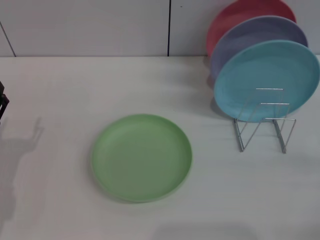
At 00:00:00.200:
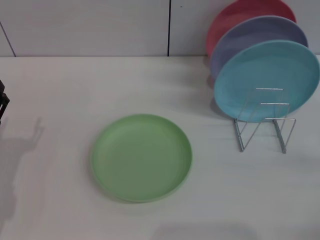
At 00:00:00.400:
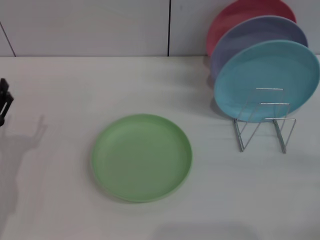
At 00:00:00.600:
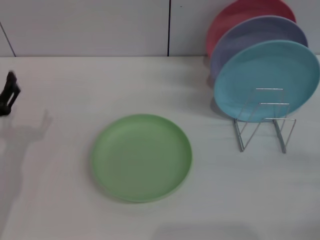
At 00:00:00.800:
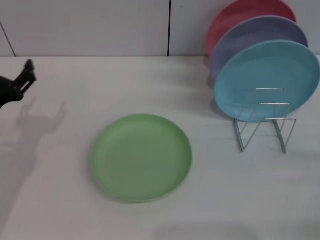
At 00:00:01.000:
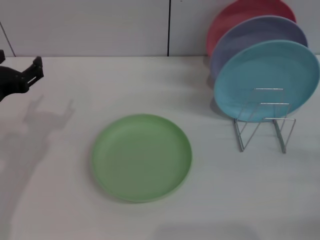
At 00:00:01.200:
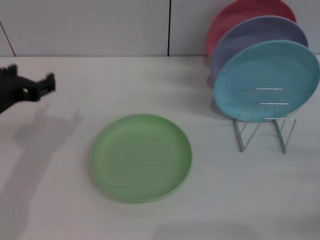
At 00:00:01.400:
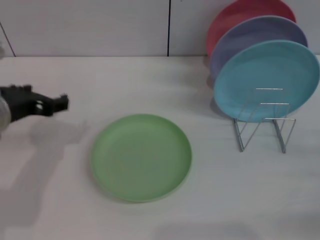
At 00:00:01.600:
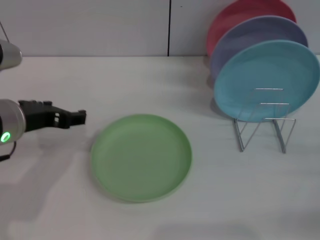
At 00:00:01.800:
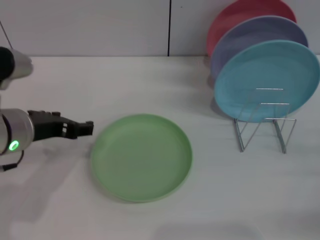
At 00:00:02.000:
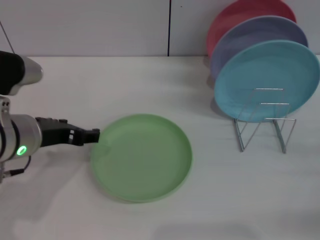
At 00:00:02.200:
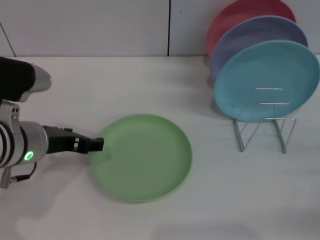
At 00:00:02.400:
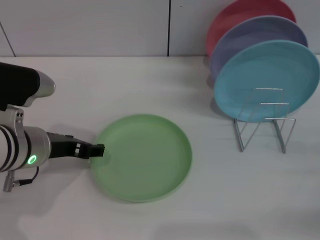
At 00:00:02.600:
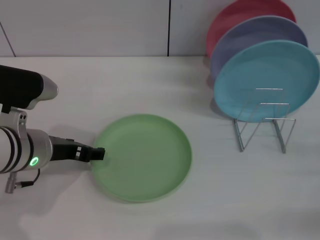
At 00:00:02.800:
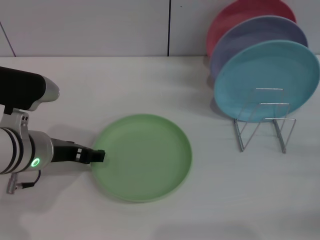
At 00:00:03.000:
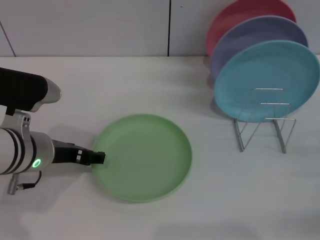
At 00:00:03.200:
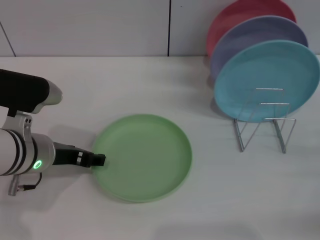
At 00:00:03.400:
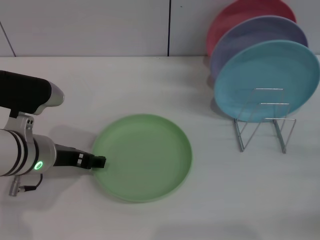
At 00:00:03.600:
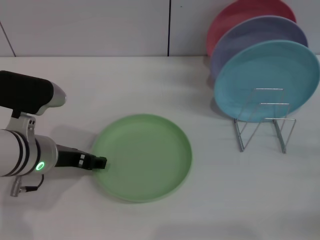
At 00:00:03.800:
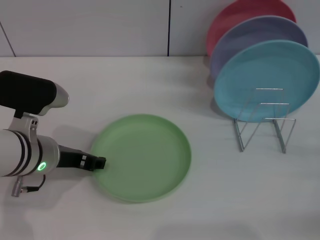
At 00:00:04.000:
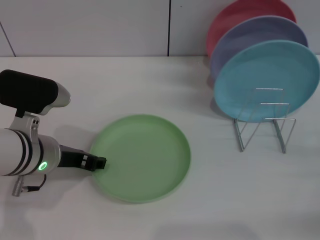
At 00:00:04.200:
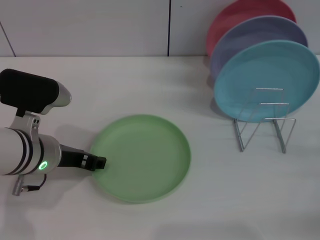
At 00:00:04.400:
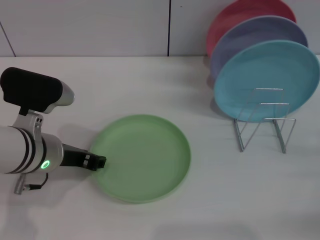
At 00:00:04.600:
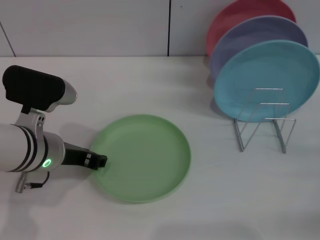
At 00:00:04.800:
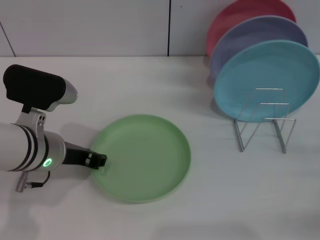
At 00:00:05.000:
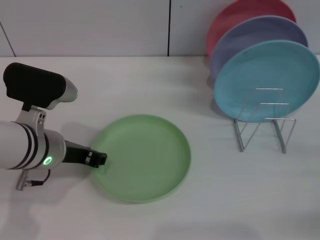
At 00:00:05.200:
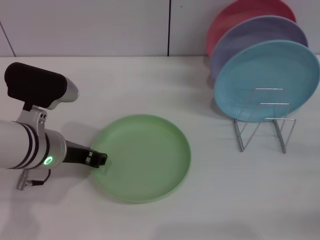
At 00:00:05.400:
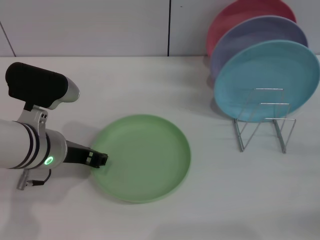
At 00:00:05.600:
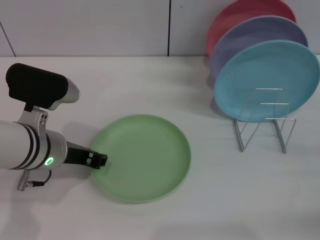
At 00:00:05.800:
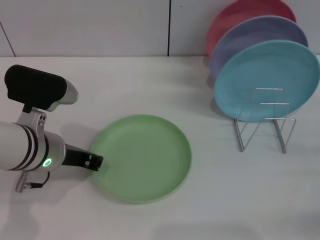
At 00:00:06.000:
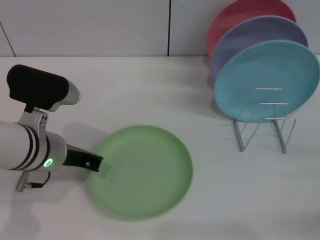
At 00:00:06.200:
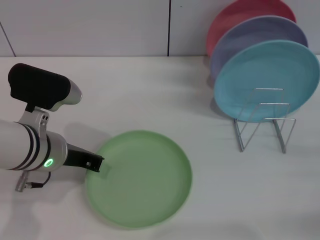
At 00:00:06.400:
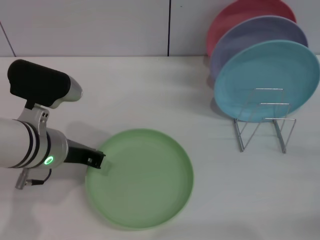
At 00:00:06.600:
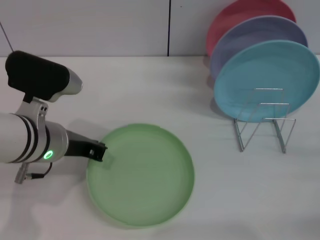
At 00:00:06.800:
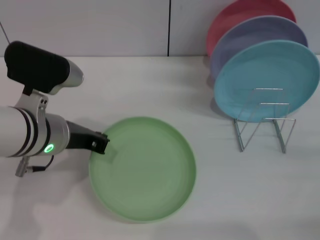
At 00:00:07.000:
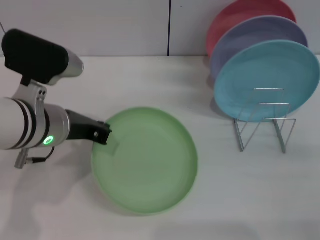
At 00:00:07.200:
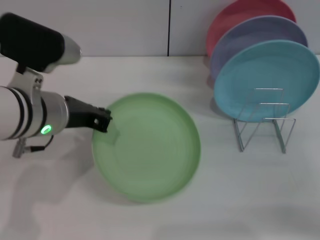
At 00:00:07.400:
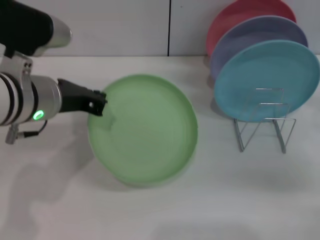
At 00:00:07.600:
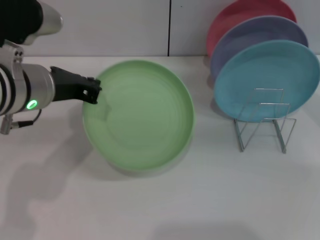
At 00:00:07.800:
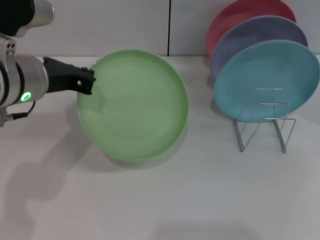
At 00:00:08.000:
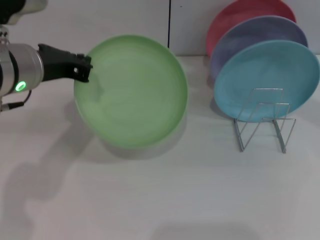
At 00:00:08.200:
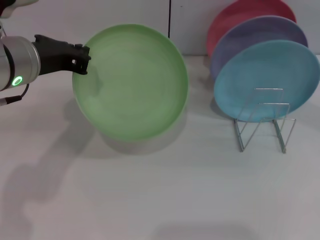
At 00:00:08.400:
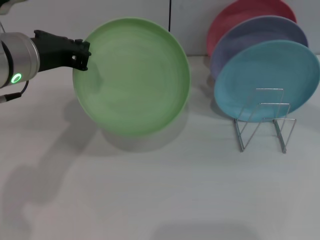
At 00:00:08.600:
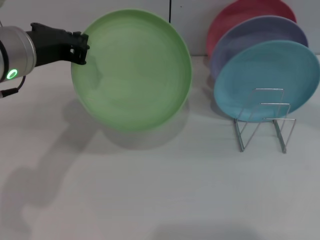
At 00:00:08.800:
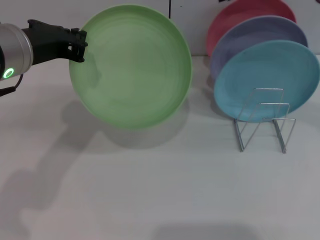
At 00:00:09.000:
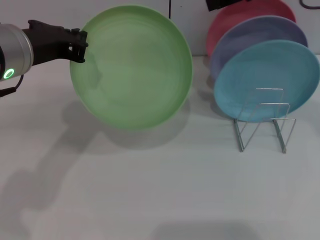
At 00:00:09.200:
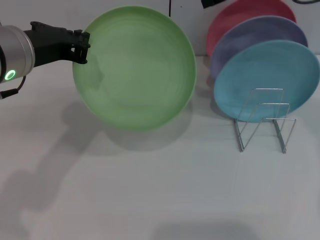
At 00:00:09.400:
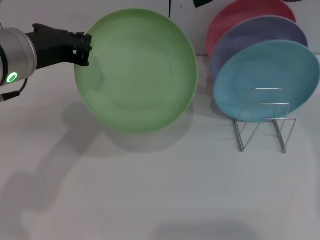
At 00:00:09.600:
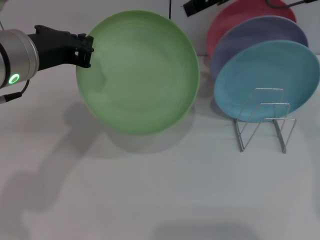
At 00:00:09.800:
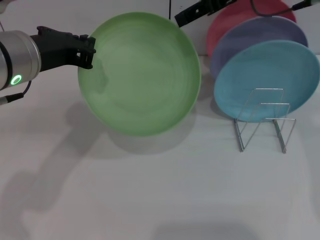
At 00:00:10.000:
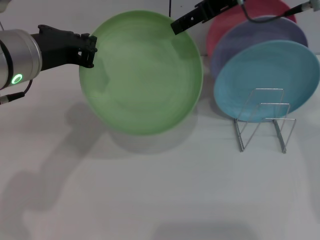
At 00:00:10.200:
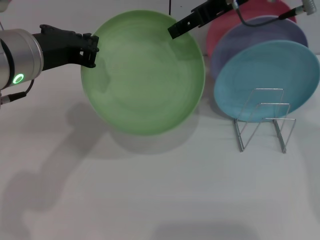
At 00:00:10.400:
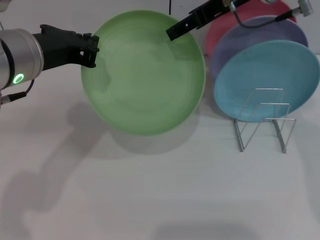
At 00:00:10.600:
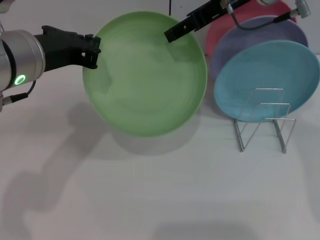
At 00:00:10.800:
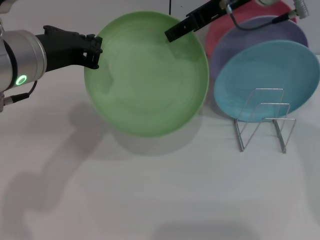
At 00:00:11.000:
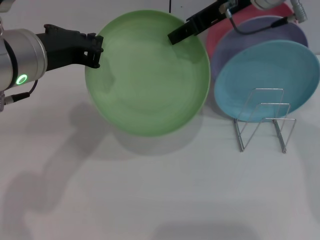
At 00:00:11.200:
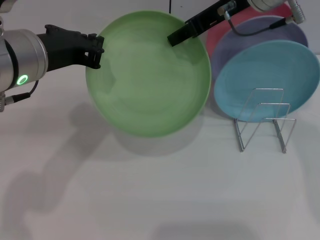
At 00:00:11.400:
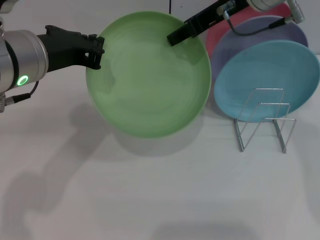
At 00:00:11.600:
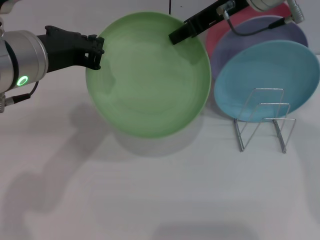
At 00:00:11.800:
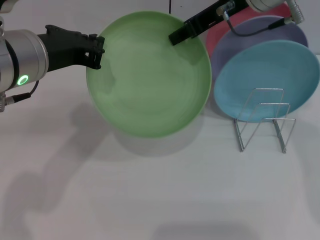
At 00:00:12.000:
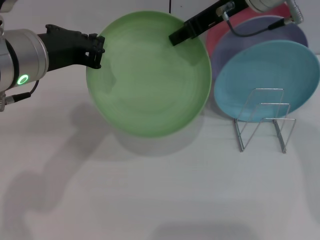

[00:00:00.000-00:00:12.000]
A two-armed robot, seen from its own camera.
Task of the whole recording: Grip the plate with one hand, pass it to the other, then set it on the shelf.
Step, 00:00:00.000 to 00:00:07.400: Pick up the plate with the left gripper.
00:00:00.000 to 00:00:01.600: The left gripper travels upward, to the right and forward by approximately 15 cm.
00:00:01.600 to 00:00:03.000: The left gripper heads downward, covering some 5 cm.
00:00:03.000 to 00:00:04.400: Both grippers stay about where they are.
00:00:04.400 to 00:00:06.000: The left gripper closes.
00:00:06.000 to 00:00:07.600: The right gripper travels forward and upward by about 20 cm; the left gripper moves upward, about 10 cm.
00:00:07.600 to 00:00:09.000: The right gripper is displaced upward and to the left by about 15 cm.
00:00:09.000 to 00:00:10.400: The right gripper travels to the left by about 5 cm.
00:00:10.400 to 00:00:12.000: The right gripper closes its fingers.

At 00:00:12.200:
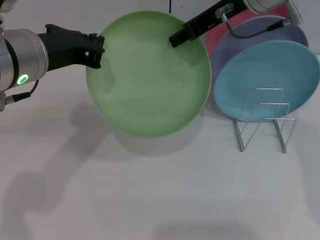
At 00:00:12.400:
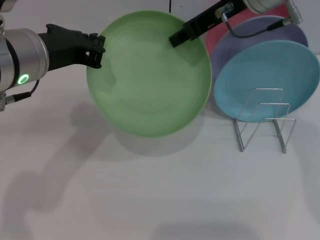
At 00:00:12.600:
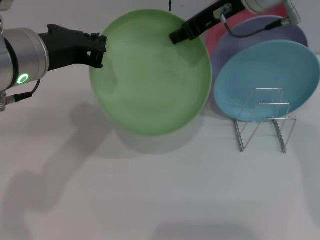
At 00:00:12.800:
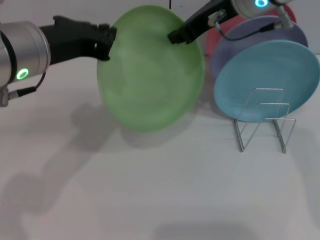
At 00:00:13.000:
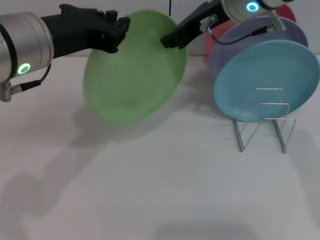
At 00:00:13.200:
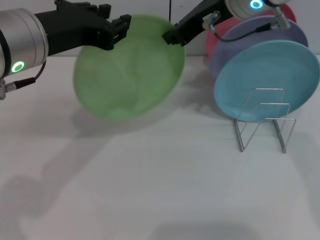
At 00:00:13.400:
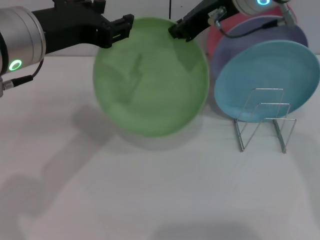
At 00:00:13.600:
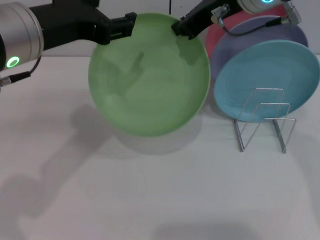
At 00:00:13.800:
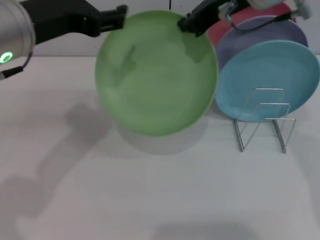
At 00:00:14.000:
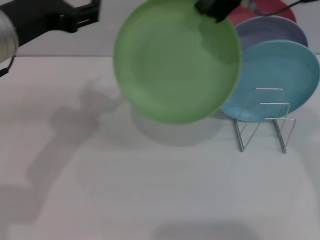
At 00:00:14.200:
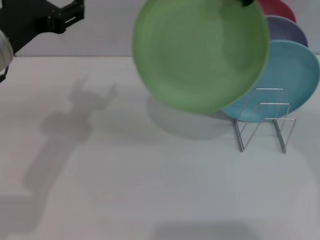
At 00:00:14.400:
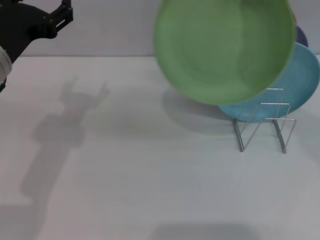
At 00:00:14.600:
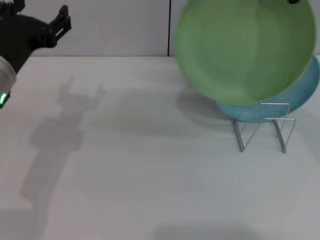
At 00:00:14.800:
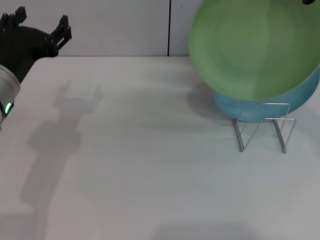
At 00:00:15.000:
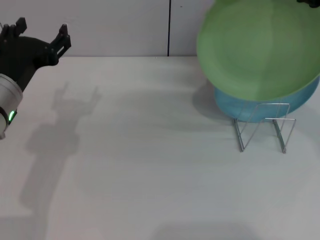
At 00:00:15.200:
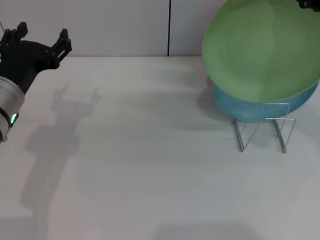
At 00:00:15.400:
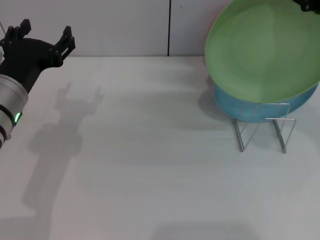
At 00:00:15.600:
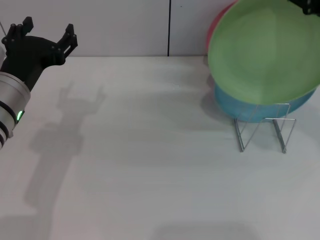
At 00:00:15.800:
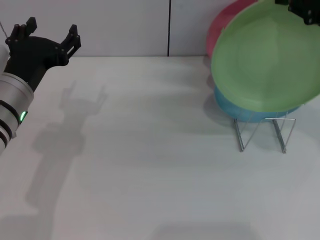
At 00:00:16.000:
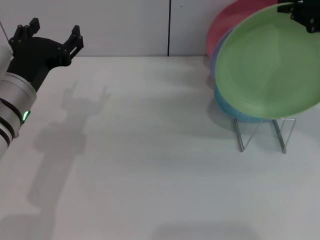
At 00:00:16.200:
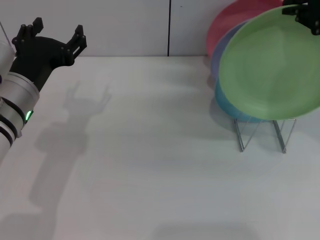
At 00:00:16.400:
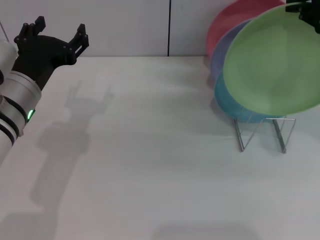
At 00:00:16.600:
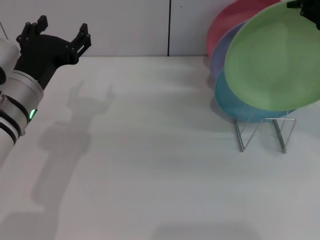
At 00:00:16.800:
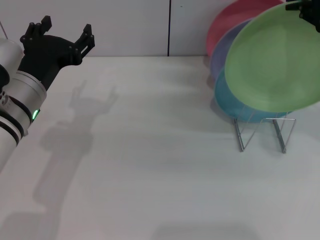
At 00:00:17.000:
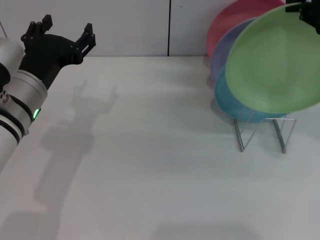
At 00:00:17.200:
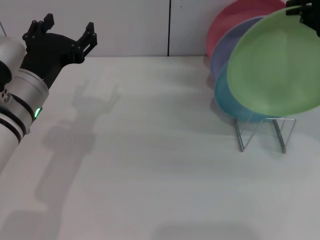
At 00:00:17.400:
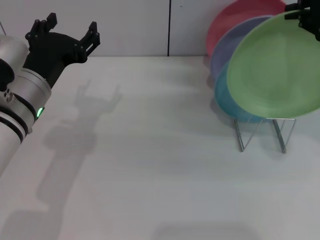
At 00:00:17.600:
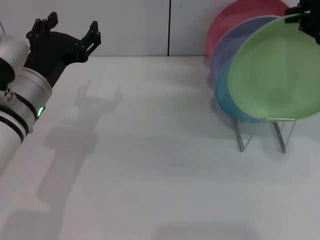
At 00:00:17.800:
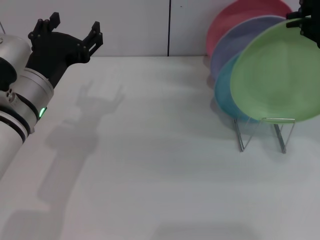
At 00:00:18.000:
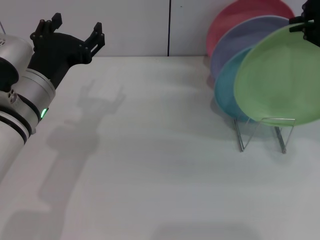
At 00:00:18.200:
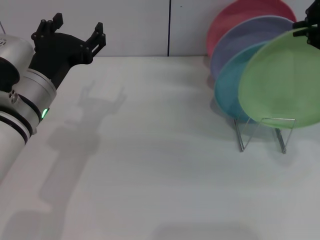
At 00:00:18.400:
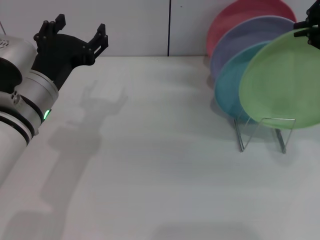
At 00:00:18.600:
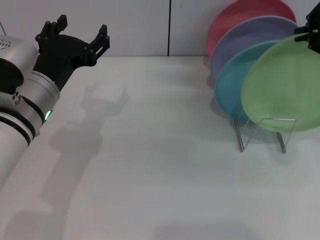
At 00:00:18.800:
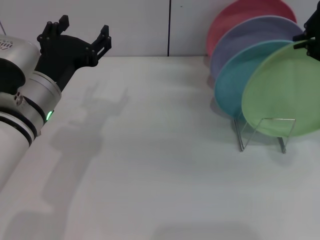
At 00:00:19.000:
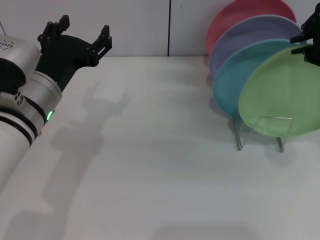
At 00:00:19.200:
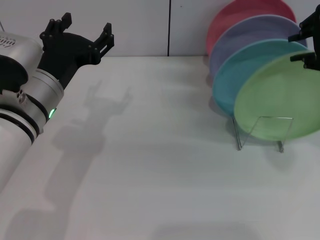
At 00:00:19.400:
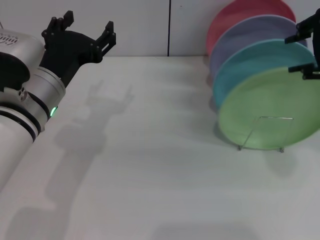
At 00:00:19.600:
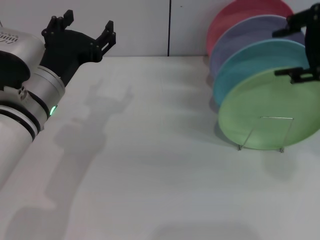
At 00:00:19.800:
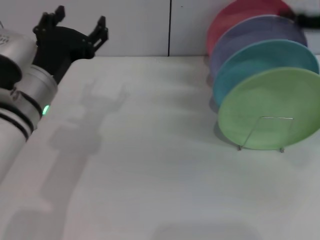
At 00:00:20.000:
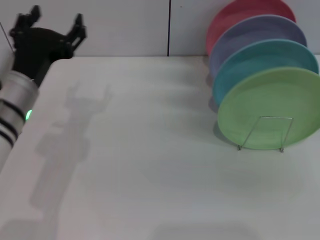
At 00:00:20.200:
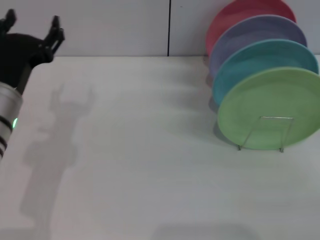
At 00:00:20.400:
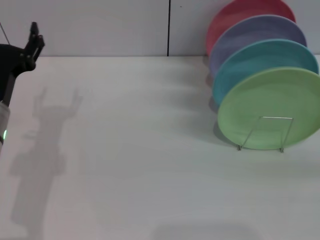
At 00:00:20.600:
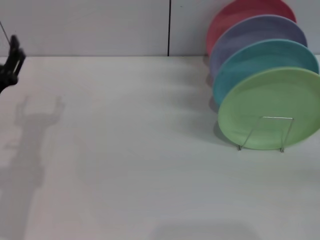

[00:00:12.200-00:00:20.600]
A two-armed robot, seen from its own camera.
Task of the whole recording: Grip the plate with one hand, pass it to the other, then set it on the shelf.
Step, 00:00:13.800 to 00:00:19.600: Place the plate on the shelf with the right gripper.
00:00:12.200 to 00:00:13.600: The left gripper opens its fingers.
00:00:13.600 to 00:00:15.000: The left gripper goes approximately 10 cm downward, and opens up. The right gripper goes roughly 15 cm to the right, backward and upward.
00:00:15.000 to 00:00:17.800: There are only small adjustments of the grippers.
00:00:17.800 to 00:00:19.200: There are only small adjustments of the grippers.
00:00:19.200 to 00:00:20.600: The left gripper travels to the left and downward by approximately 10 cm. The right gripper goes some 30 cm downward, backward and to the right, and opens.
